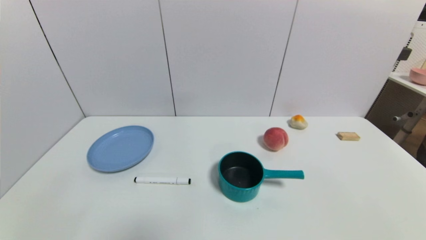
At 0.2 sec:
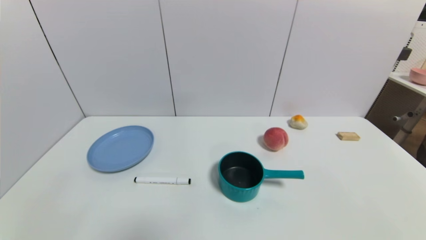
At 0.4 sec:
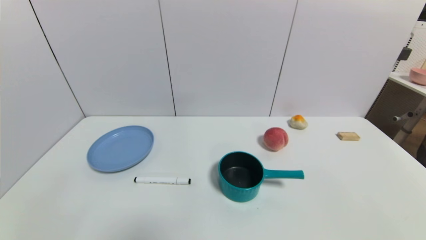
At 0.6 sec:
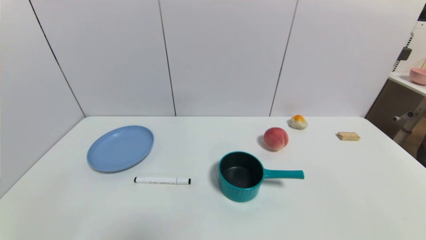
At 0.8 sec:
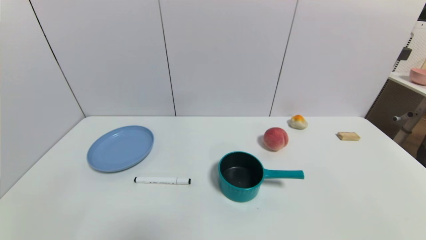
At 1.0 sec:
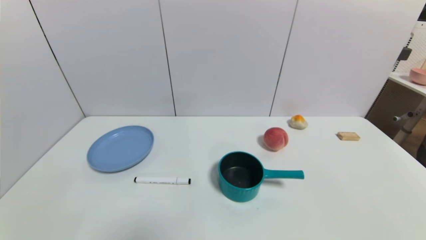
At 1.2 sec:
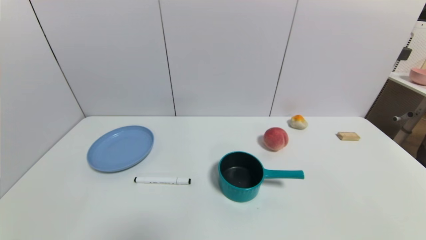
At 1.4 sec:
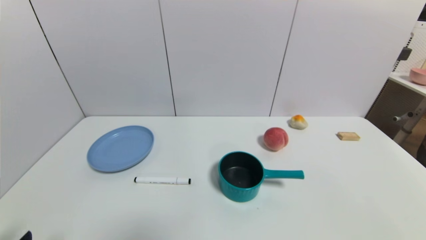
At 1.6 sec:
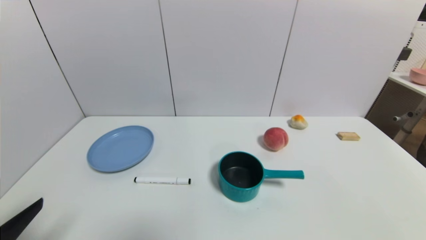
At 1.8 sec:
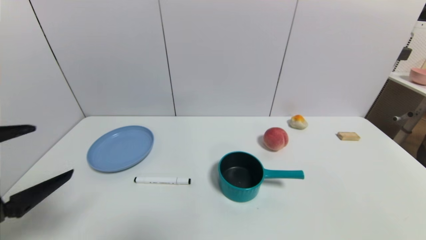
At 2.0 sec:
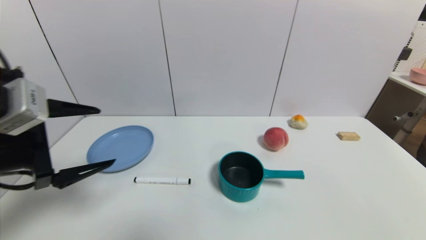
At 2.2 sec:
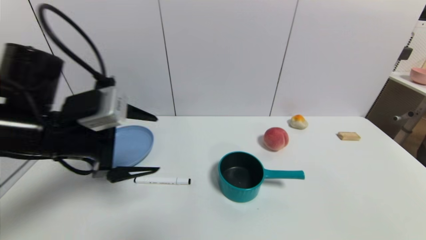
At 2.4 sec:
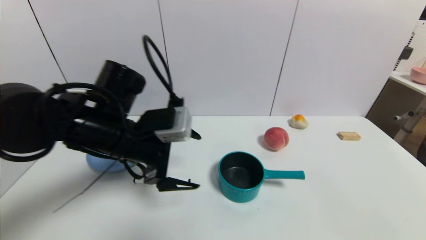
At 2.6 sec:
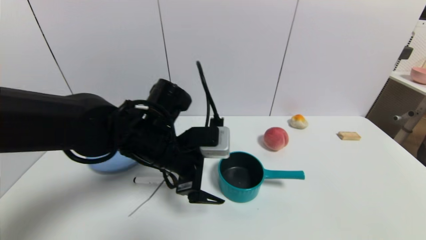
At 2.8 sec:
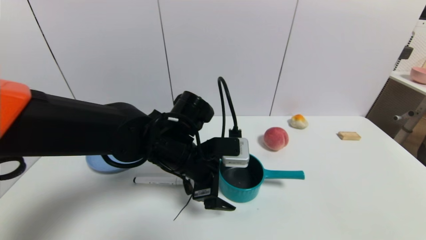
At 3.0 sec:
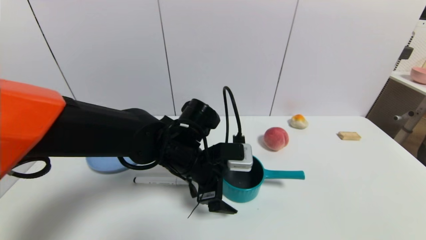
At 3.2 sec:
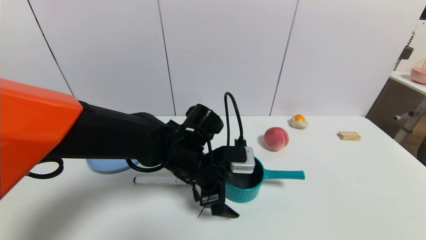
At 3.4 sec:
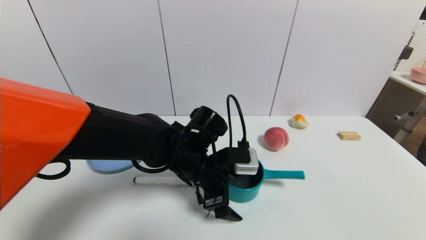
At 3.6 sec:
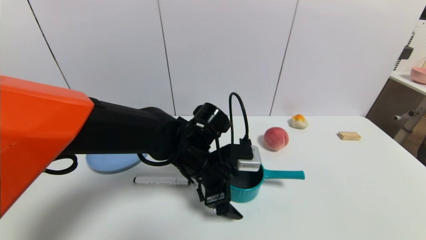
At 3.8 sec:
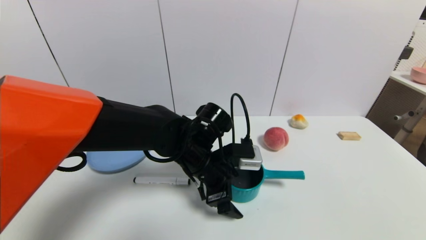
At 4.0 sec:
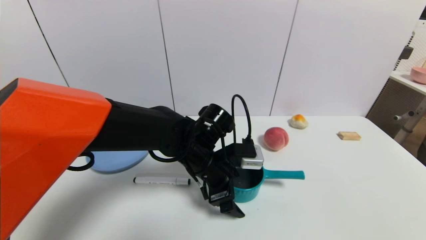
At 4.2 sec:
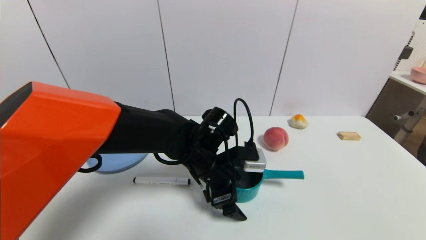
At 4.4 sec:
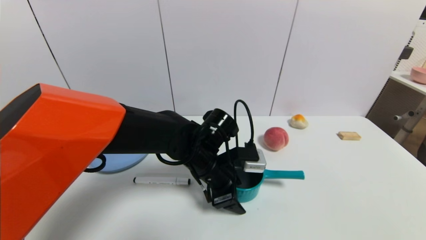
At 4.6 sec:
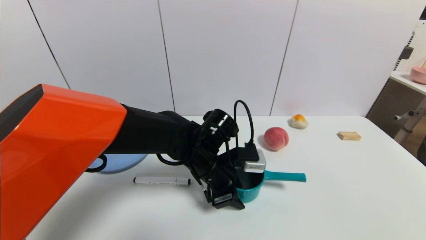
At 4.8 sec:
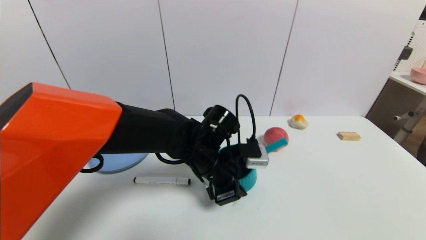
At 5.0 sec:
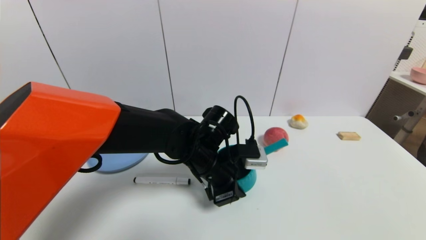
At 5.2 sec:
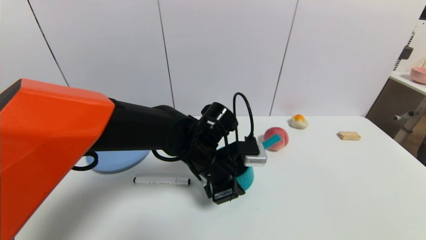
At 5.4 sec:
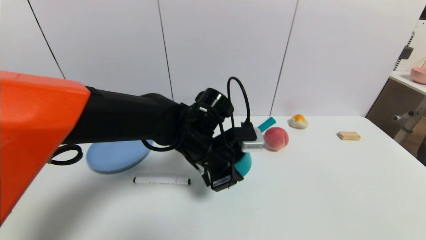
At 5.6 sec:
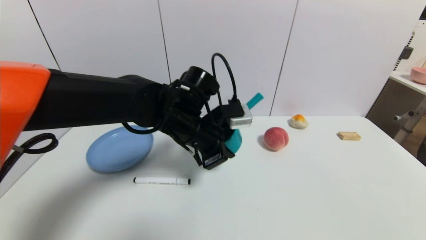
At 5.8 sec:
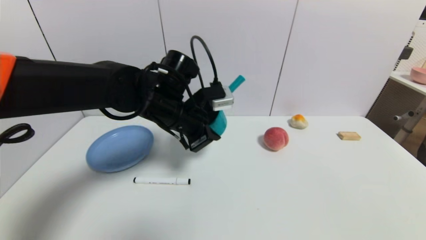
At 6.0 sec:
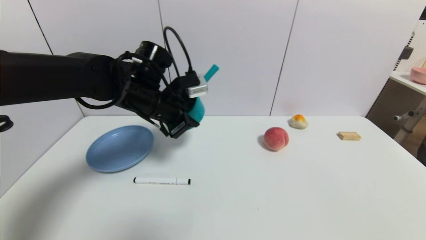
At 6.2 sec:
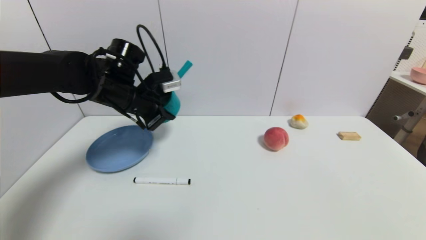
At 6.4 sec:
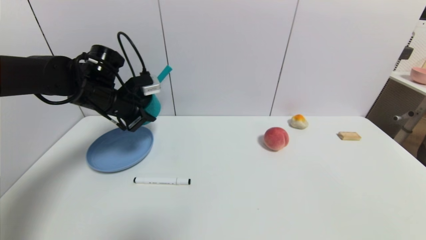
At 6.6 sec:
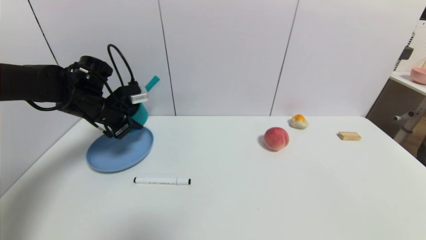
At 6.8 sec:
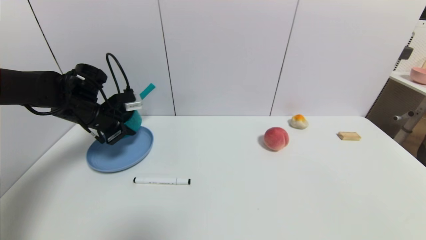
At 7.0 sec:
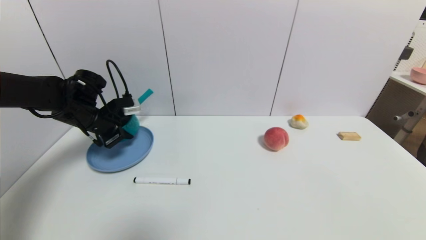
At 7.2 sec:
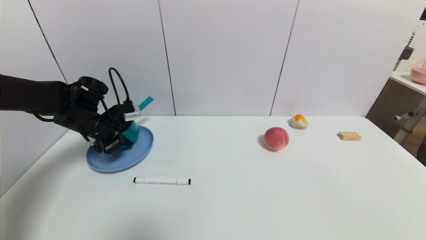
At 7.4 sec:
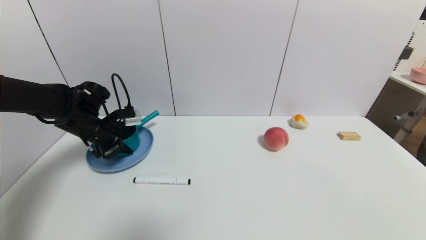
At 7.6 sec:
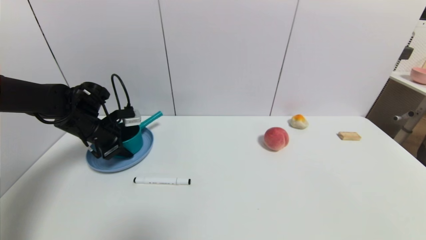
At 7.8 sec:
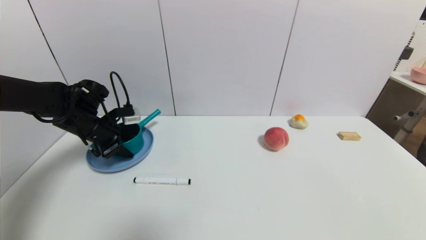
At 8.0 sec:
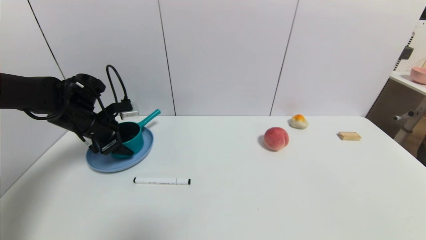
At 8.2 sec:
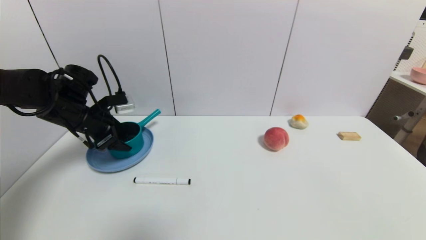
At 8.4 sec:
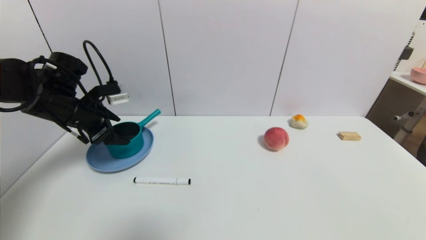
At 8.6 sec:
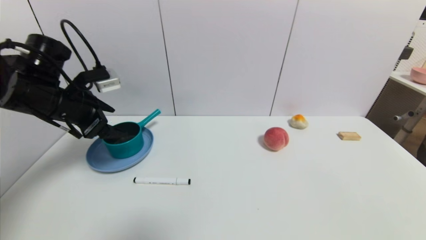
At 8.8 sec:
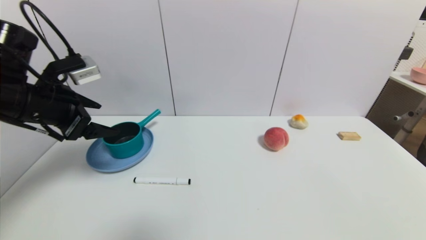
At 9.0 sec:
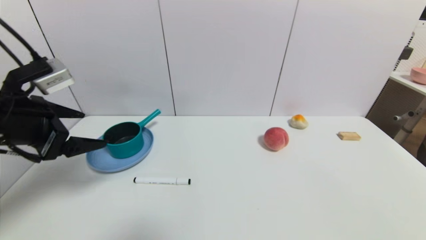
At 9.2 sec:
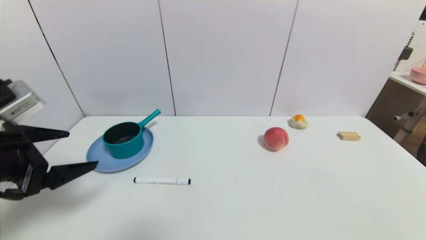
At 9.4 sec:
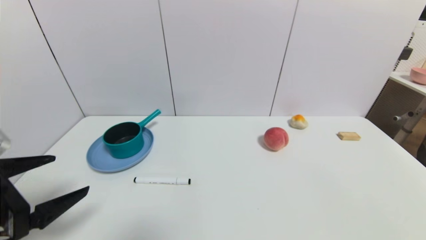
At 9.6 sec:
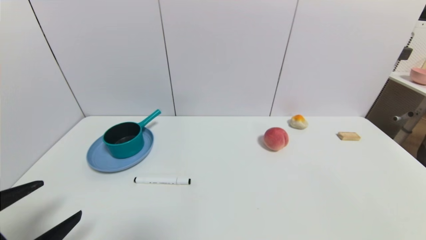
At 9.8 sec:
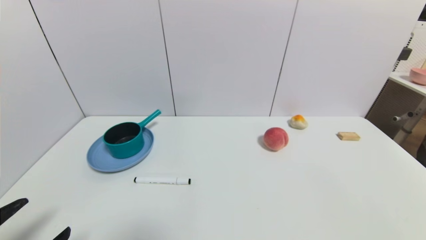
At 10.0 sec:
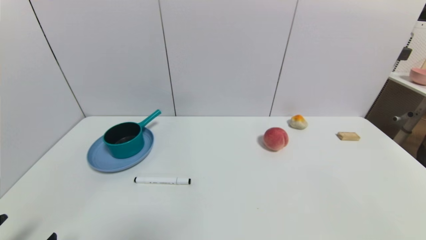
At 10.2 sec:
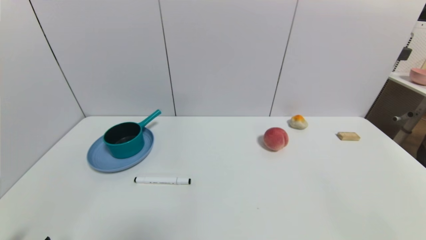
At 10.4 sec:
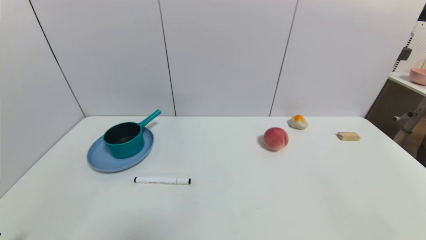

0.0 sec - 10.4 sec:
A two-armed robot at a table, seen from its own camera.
Task of the whole recording: use a gripper to pick the target object and place on the blue plate.
Step, 0.0 sec - 5.0 sec: Grasp the blue pot with the left gripper.
Step, 5.2 sec - 8.8 sec: Place the blue pot on the blue plate with the left gripper.
1.4 sec - 3.0 sec: The left gripper is displaced forward and to the right by approximately 35 cm.
3.0 sec - 4.4 sec: The grippers make only small movements.
4.4 sec - 6.0 sec: The left gripper goes some 15 cm to the left, upward and forward, and closes.
6.0 sec - 7.4 sec: The left gripper heads to the left and downward, covering about 20 cm.
7.4 sec - 9.0 sec: The left gripper moves backward and upward, about 20 cm, and opens.
9.0 sec - 10.4 sec: The left gripper goes about 25 cm backward and downward.
